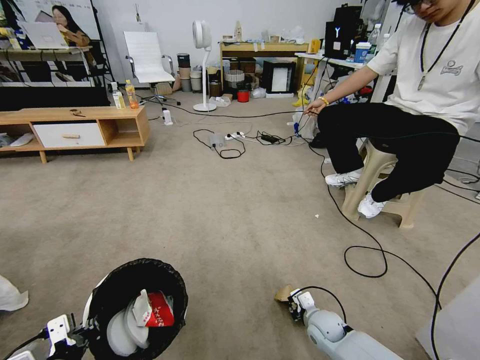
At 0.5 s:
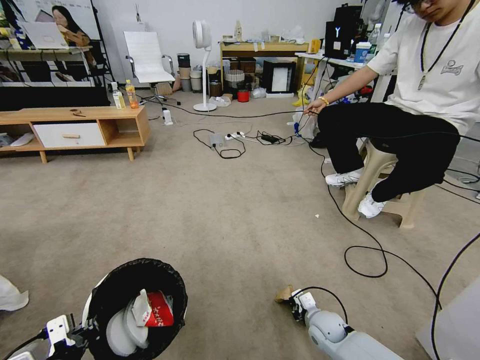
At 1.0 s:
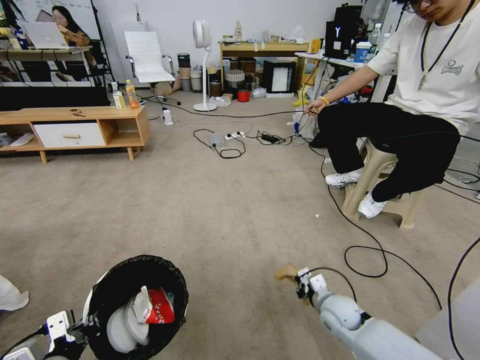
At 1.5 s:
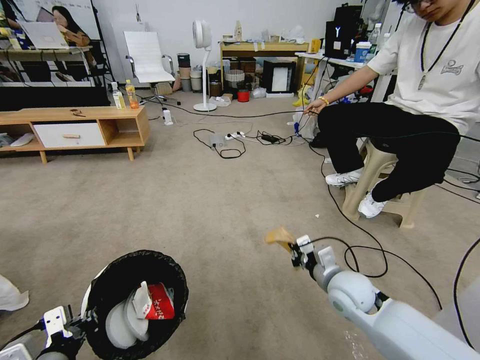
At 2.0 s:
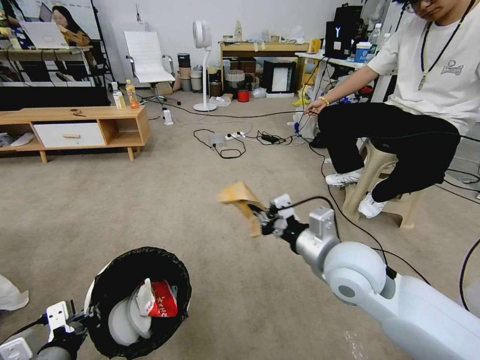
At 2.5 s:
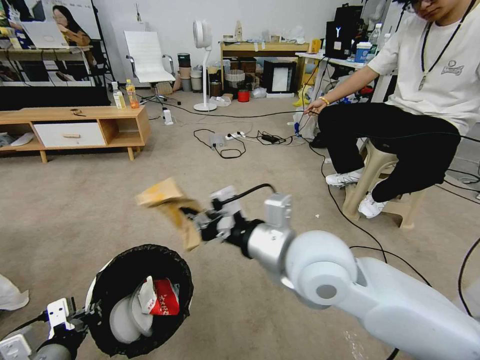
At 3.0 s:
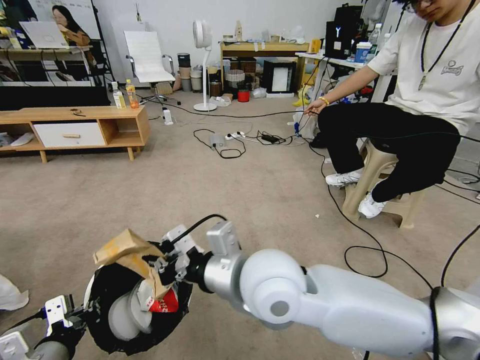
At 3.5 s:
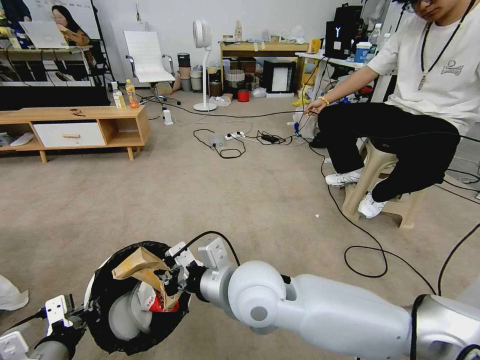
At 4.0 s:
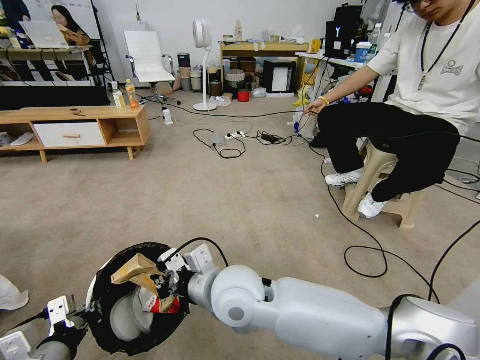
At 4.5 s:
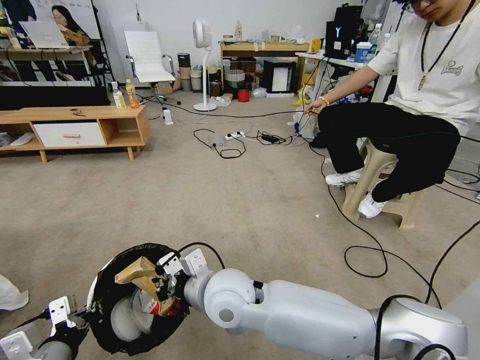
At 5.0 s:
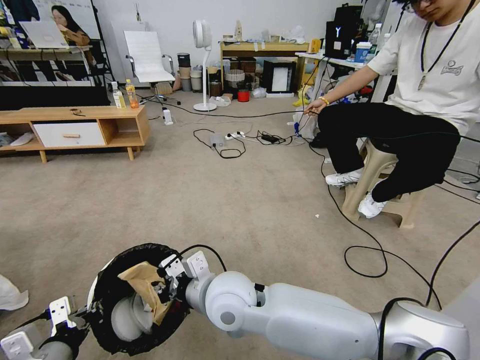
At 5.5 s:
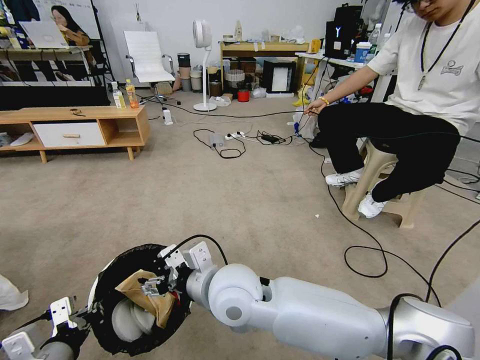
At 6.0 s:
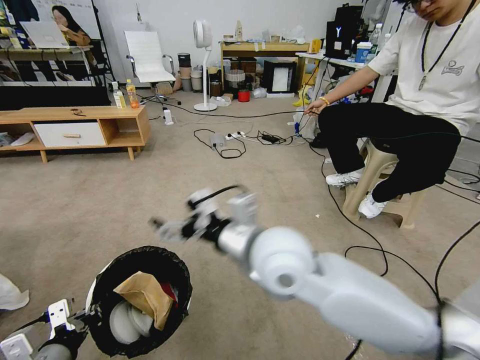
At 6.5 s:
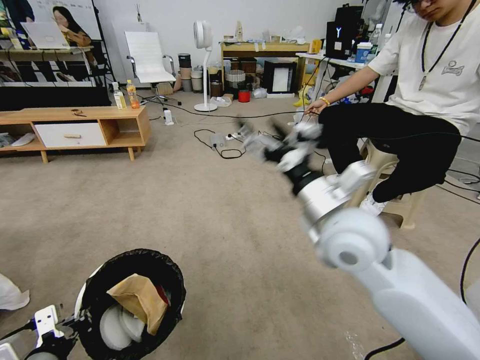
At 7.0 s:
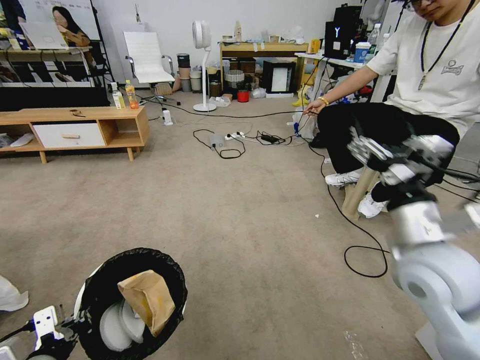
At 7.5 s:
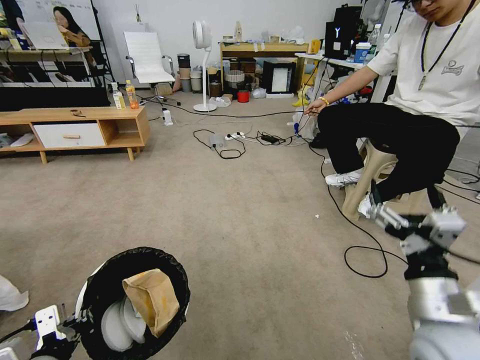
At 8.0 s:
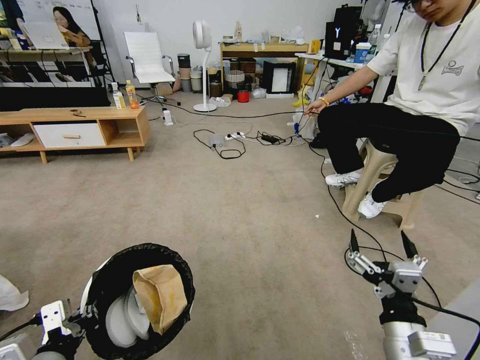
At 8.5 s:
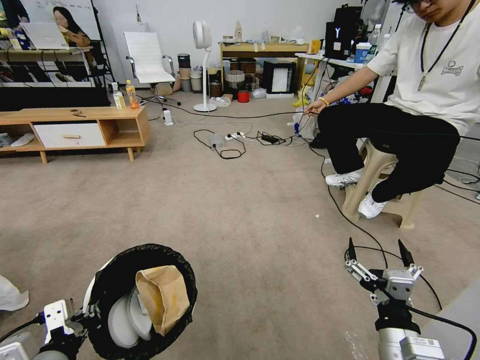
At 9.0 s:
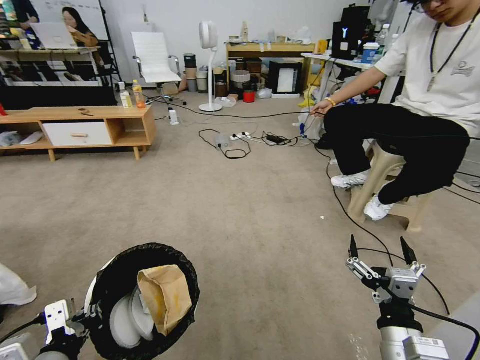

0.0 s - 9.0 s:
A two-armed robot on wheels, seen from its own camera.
Task of the whole recording: Pick up the trash bin and place the garbage on the floor into it.
0.0 s - 2.0 s: The right gripper heads upward, covering roughly 35 cm, and closes up.
2.0 s - 4.5 s: The right gripper heads to the left, covering roughly 20 cm.
4.5 s - 7.0 s: The right gripper moves to the right, approximately 30 cm, and opens up.
7.0 s - 9.0 s: The right gripper shifts roughly 20 cm downward and backward.
